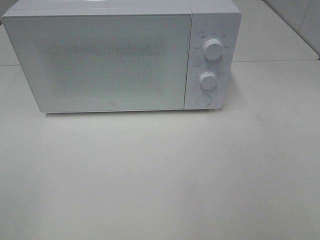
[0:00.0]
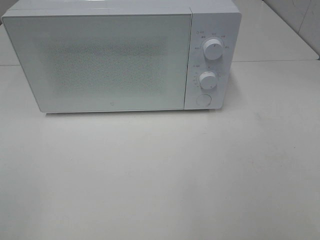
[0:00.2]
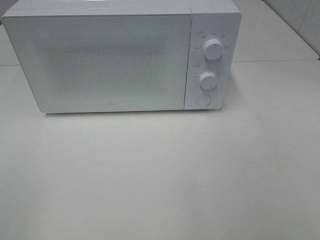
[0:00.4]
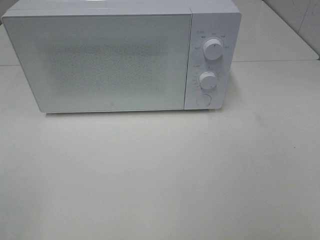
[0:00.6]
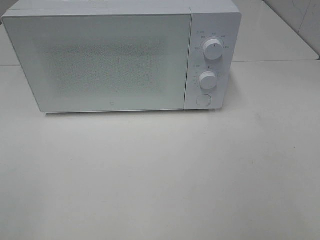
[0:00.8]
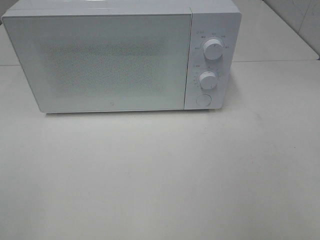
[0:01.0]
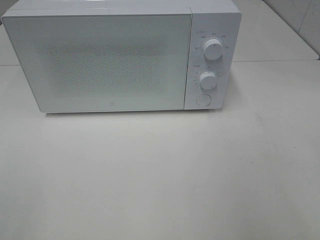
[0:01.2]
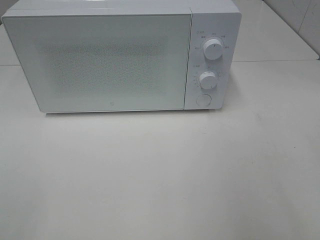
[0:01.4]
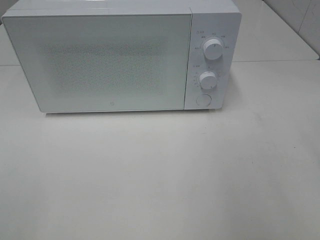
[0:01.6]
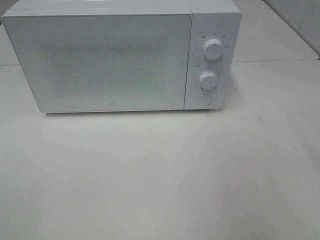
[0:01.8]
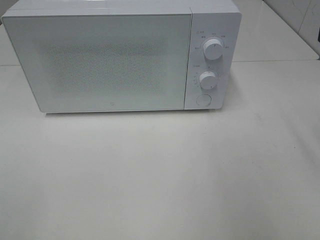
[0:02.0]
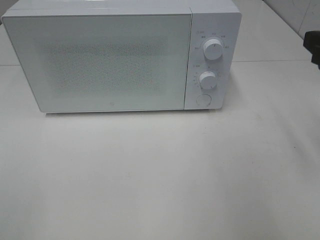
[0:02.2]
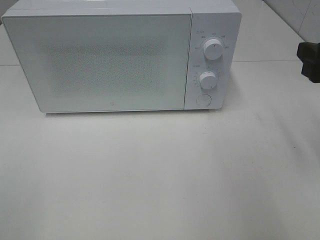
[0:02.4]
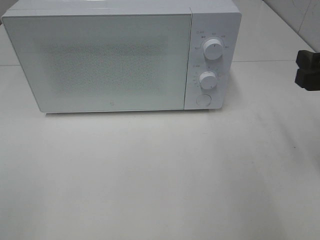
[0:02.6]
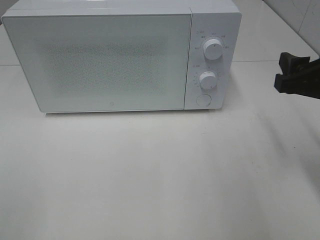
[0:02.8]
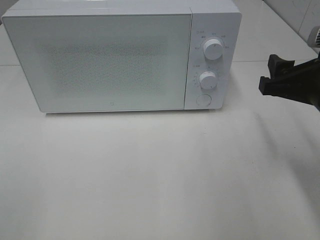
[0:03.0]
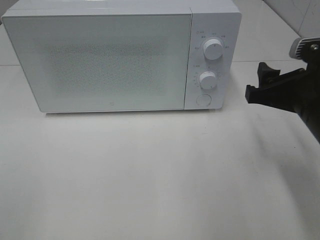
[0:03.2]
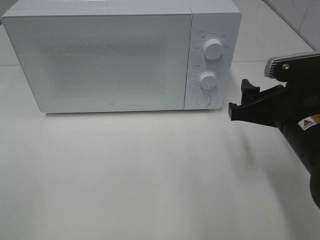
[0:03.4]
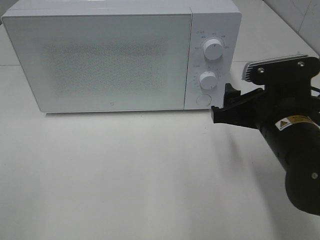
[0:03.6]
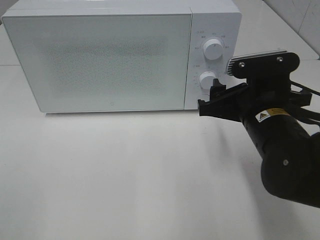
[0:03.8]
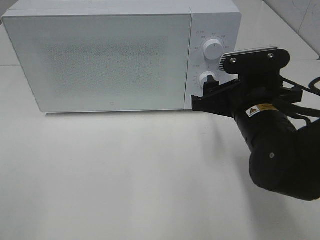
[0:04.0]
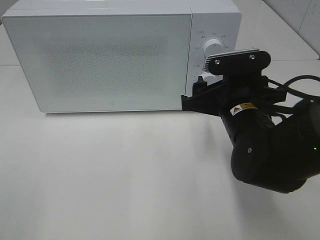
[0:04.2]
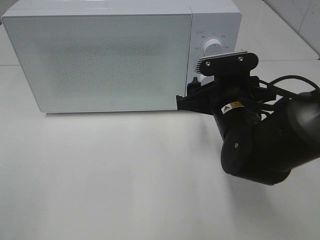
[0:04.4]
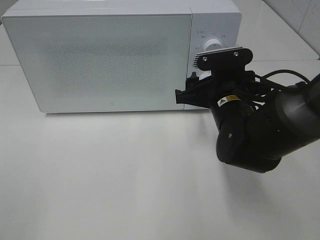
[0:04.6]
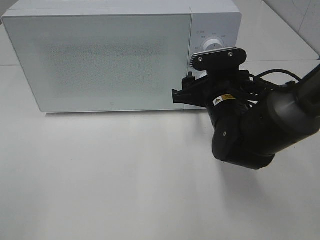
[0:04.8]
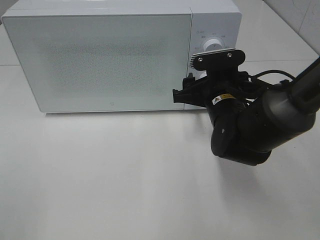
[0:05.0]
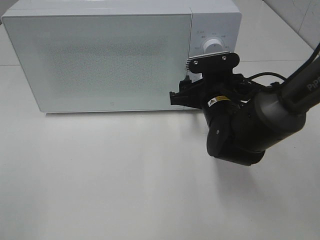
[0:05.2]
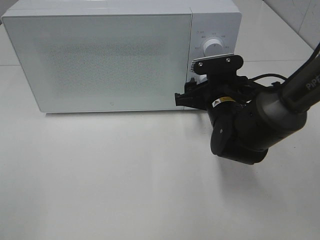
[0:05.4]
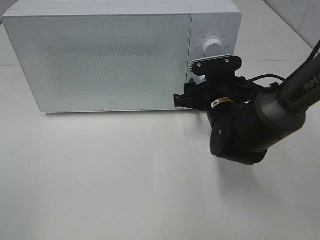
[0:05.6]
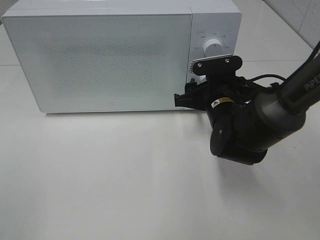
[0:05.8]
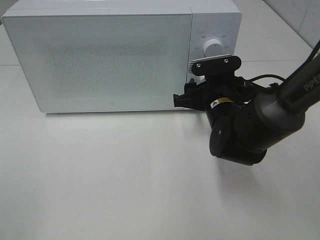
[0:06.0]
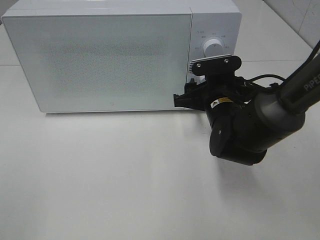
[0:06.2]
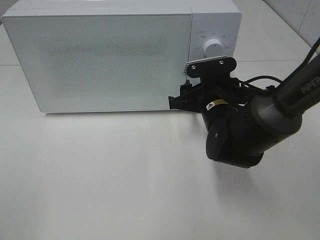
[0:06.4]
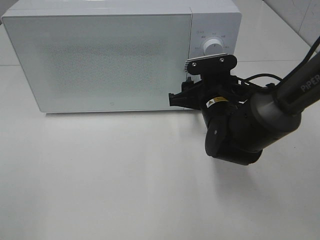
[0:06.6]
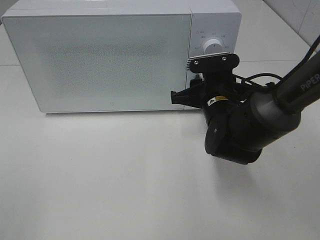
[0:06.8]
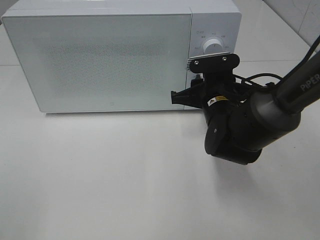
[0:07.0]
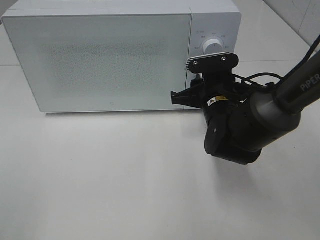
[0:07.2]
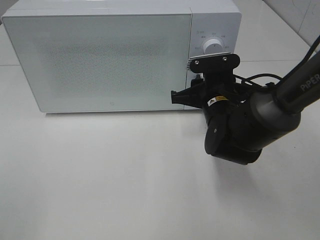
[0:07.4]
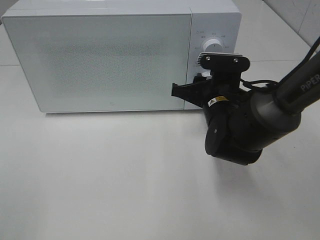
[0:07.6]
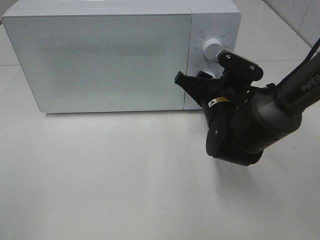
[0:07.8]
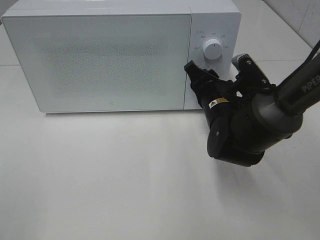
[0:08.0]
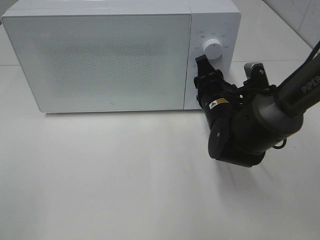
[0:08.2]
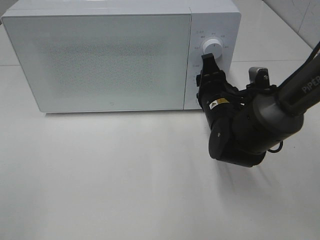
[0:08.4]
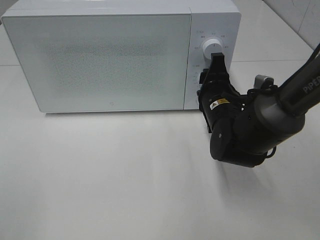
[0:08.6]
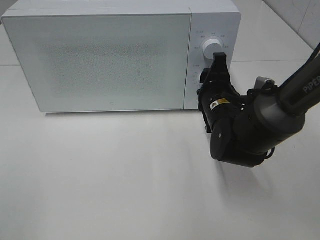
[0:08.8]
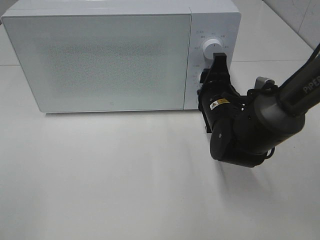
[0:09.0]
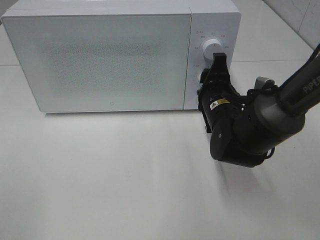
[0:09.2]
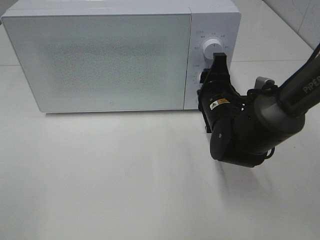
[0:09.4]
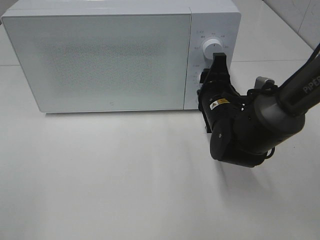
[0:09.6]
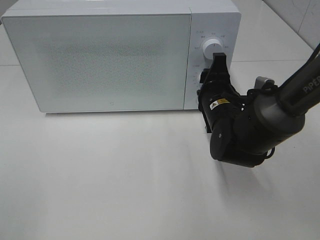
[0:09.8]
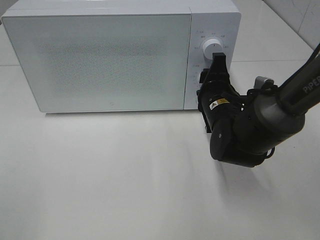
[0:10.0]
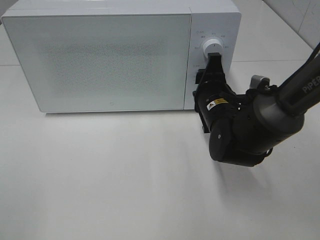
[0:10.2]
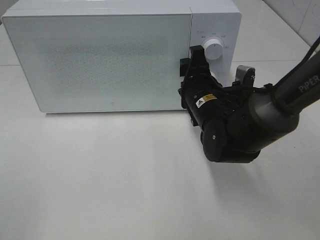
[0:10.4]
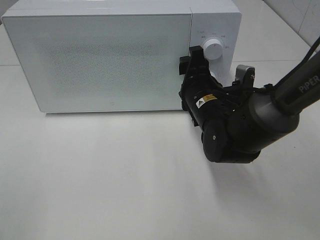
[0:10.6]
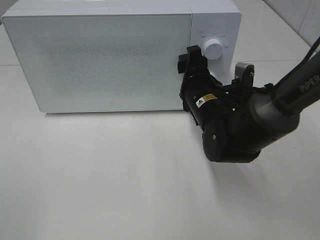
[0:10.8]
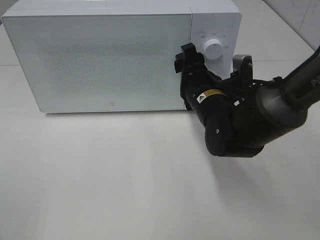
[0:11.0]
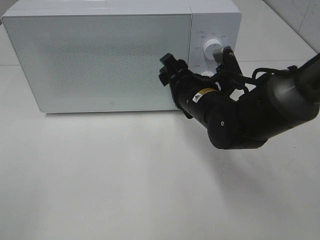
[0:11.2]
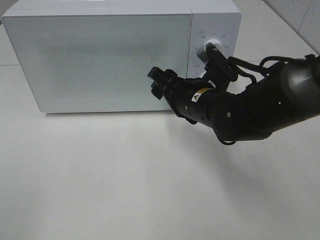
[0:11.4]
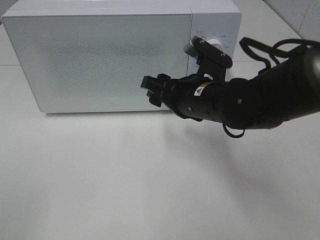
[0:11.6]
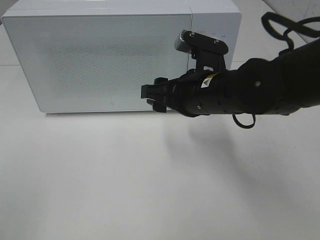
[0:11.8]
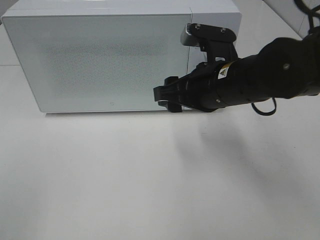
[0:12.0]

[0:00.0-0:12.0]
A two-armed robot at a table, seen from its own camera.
Task of the whole recording: Heat the burger.
Step, 0:00.0 to 0:10.4: Right hand: twist timer button.
0:01.6 to 0:03.0: The right gripper goes some 15 cm downward, forward and to the left.
0:03.0 to 0:04.4: The right gripper is displaced to the left, downward and forward by some 15 cm.
0:04.4 to 0:06.0: The right gripper shifts by some 5 cm.
0:06.0 to 0:07.6: The grippers stay close to where they were, moving slightly.
0:09.0 to 0:10.4: The grippers move only a little.
0:10.4 to 0:12.0: The right gripper goes roughly 10 cm upward.

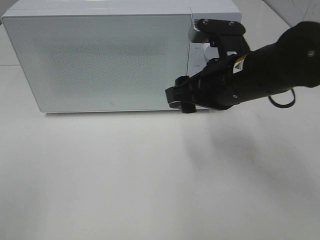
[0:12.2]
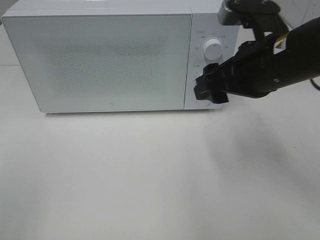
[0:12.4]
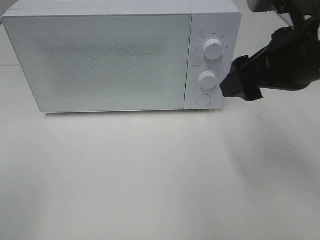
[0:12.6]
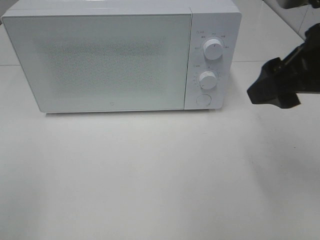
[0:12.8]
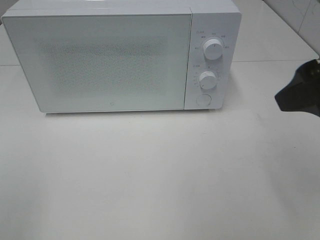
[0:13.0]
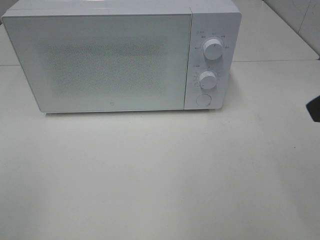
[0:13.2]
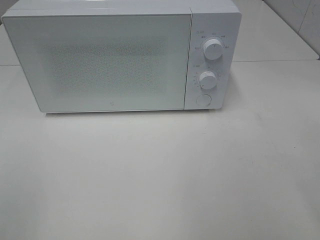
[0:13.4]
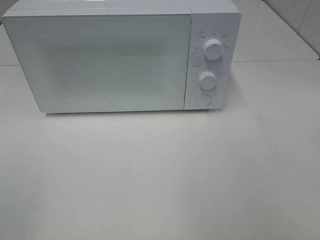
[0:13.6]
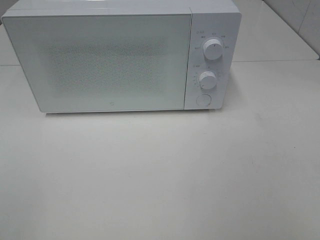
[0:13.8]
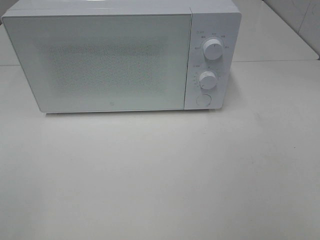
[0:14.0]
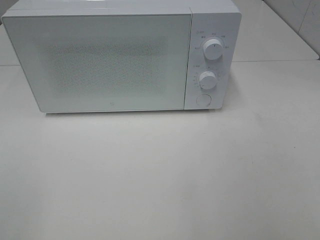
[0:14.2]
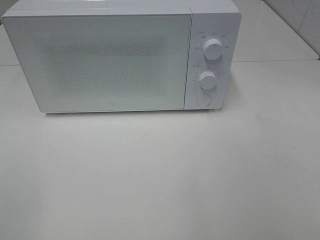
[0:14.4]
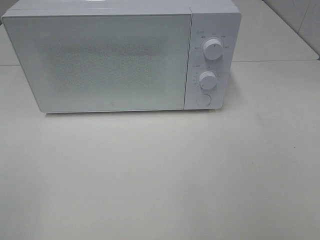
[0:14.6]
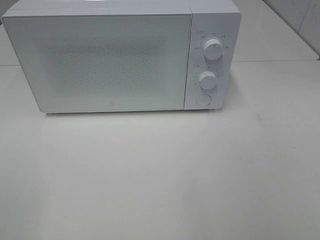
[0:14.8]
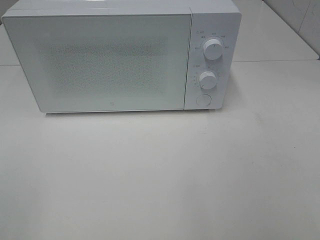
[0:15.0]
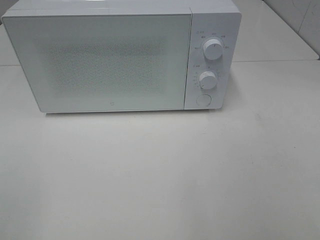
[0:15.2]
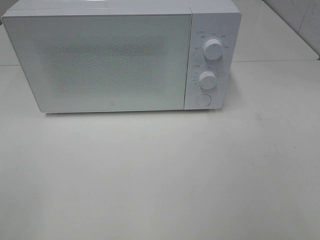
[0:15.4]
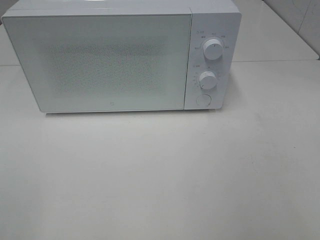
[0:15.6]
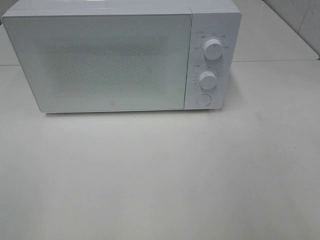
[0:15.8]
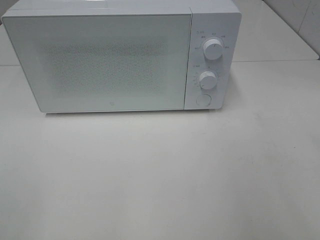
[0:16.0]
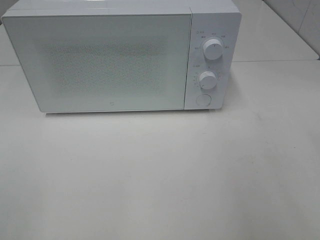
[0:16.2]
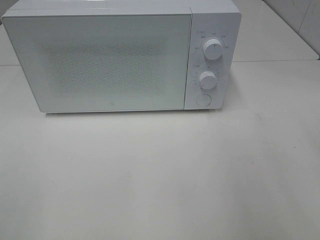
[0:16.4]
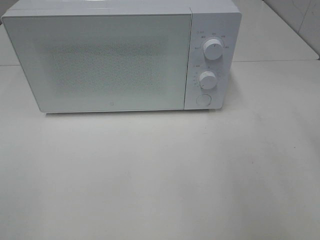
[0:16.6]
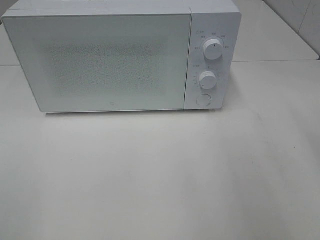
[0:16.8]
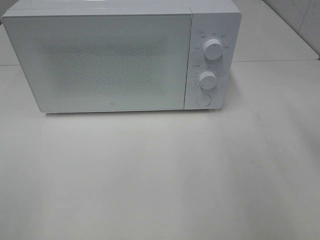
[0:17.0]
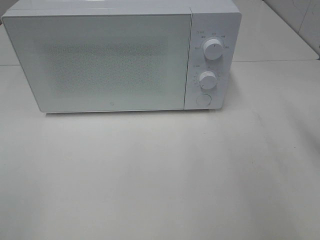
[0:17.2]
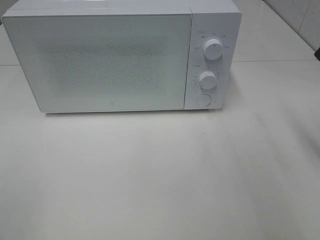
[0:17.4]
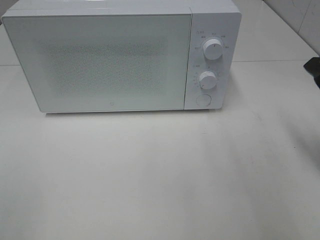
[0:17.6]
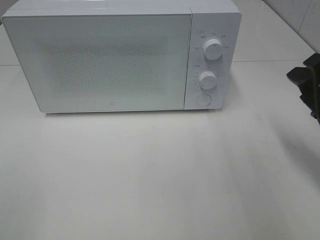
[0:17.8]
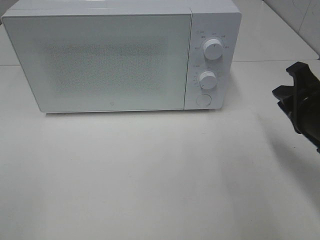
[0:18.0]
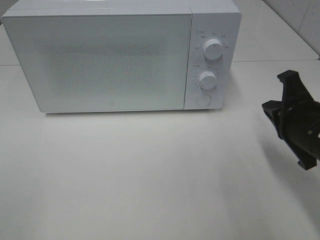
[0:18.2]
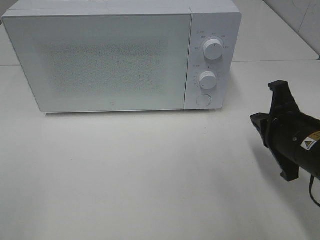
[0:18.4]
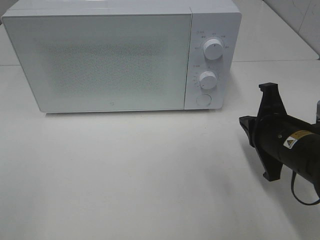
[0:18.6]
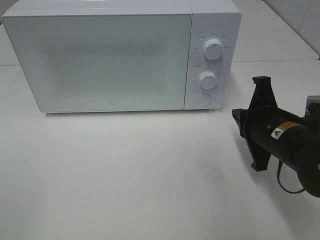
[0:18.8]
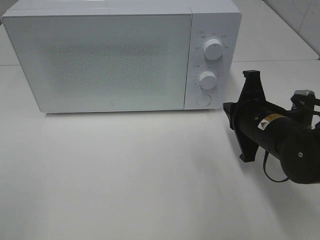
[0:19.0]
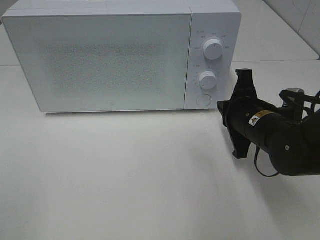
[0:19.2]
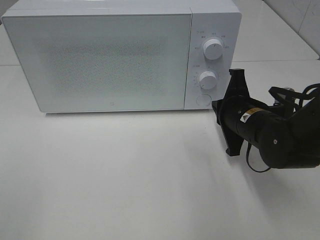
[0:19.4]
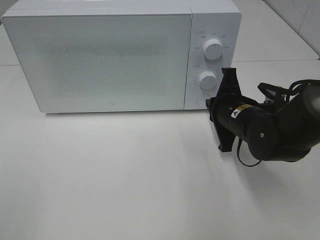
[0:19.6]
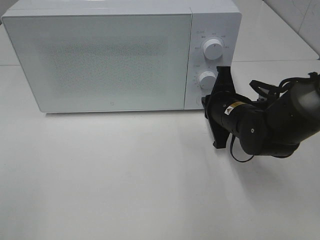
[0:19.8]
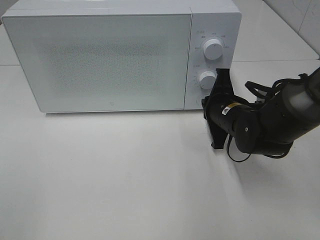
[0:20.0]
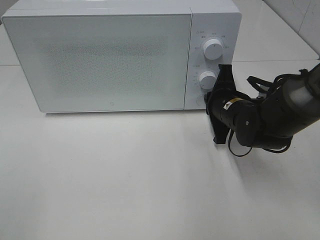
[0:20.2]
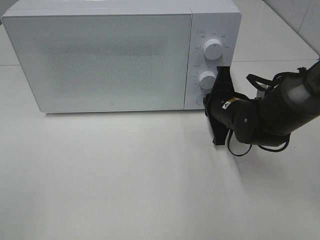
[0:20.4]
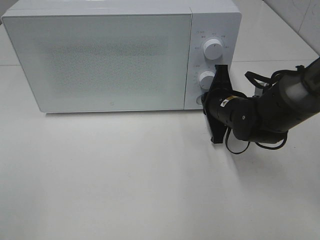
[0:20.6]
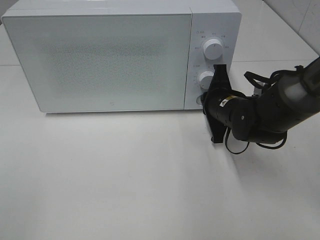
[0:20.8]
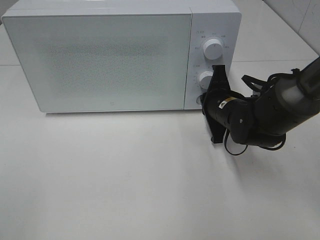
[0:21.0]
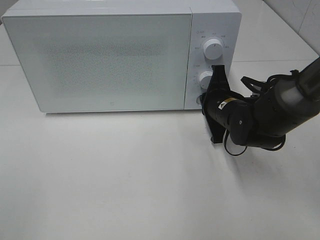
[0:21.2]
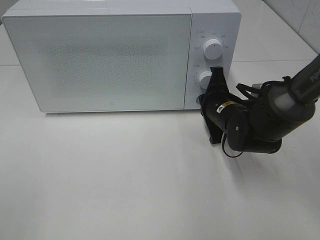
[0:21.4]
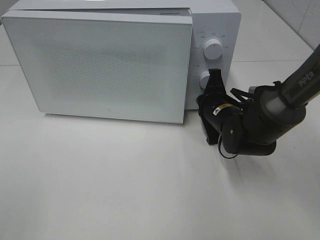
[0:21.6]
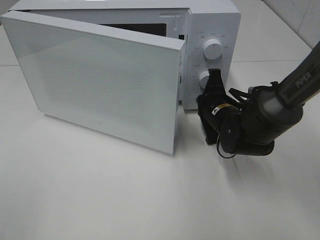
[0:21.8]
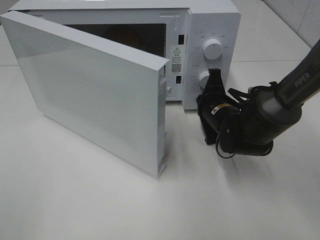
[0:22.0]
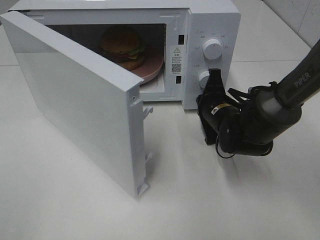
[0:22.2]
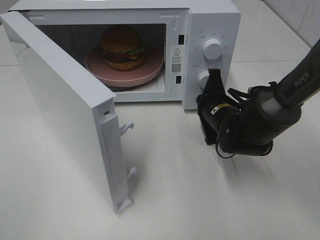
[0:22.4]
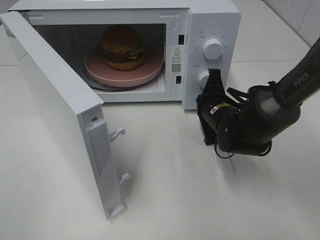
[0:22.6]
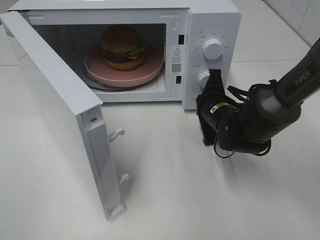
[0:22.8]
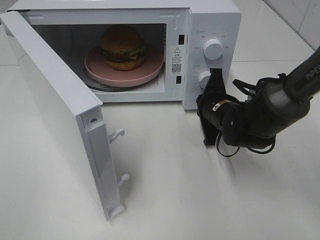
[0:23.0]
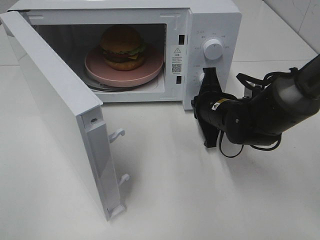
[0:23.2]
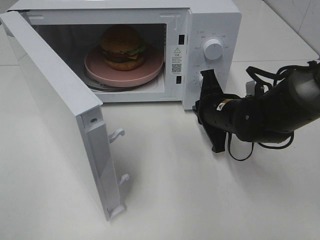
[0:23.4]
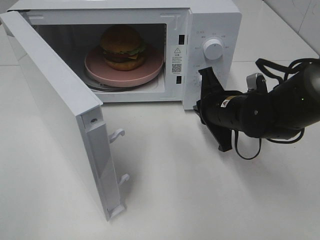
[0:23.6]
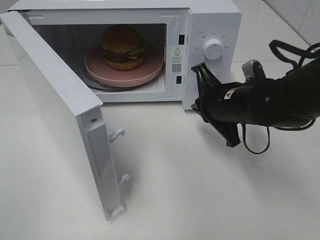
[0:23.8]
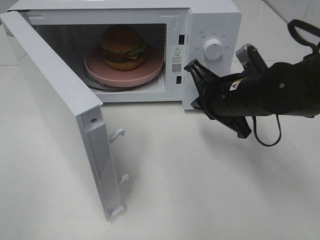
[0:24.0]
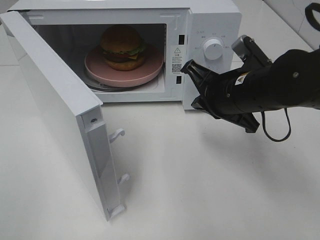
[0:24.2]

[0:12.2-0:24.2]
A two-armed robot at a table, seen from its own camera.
Task of the whole recording: Heat the burger.
Step, 0:12.2 to 0:23.2: Right hand: press the switch.
0:12.2 to 0:13.8: The right gripper moves backward, to the right and upward, roughly 30 cm.
0:16.6 to 0:18.2: The right gripper is displaced downward, to the left and forward by approximately 15 cm, and closes up.
0:18.2 to 0:19.8: The right gripper heads forward, to the left and downward, covering about 15 cm.
0:19.8 to 0:21.2: The grippers stay close to where they were, moving slightly.
0:22.6 to 0:24.2: The right gripper heads upward and backward, covering some 15 cm.
